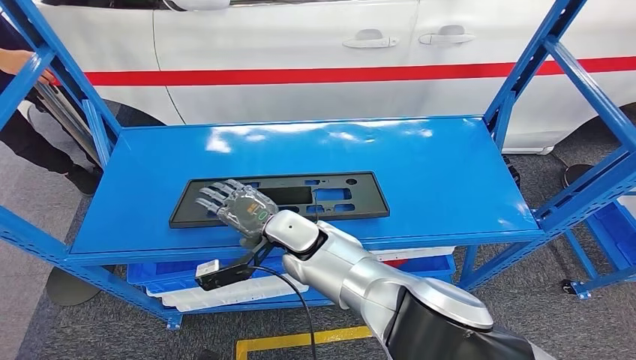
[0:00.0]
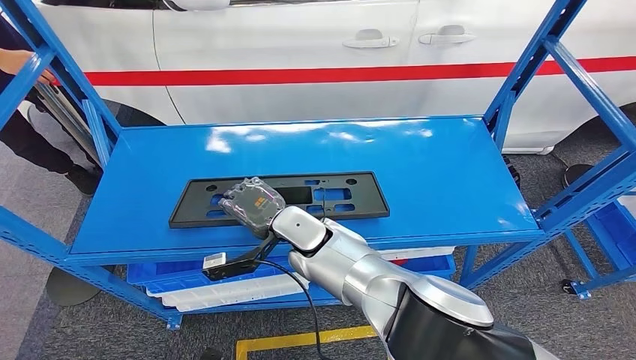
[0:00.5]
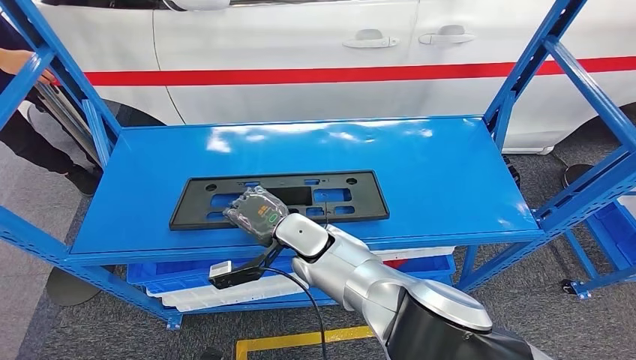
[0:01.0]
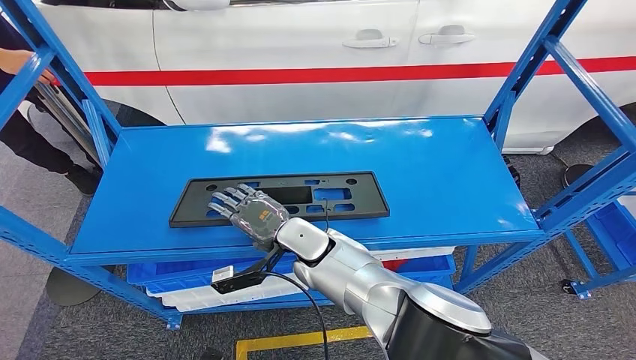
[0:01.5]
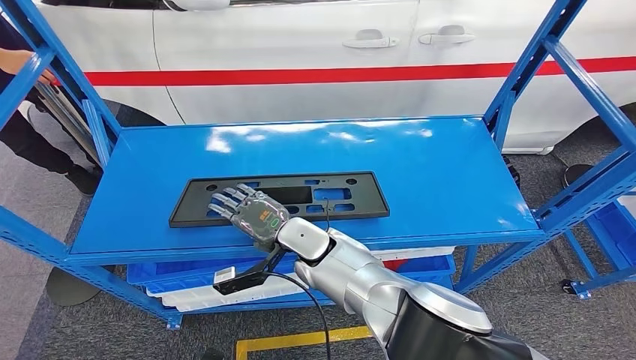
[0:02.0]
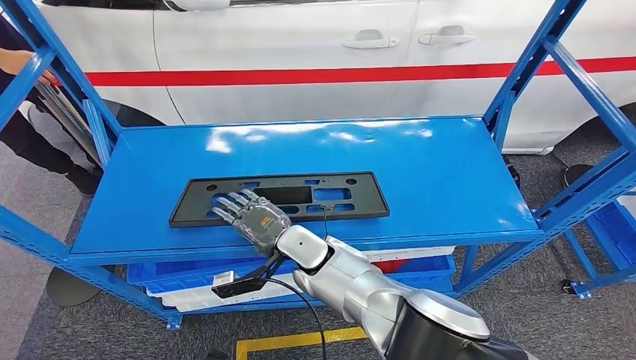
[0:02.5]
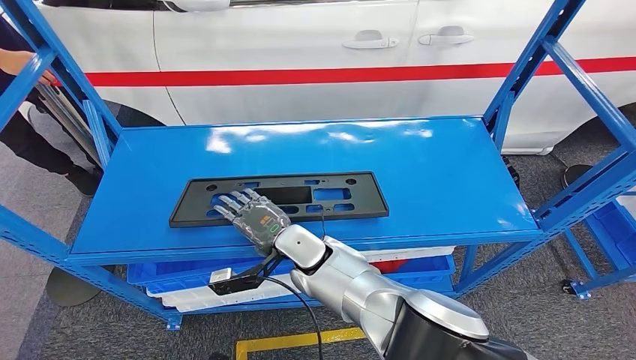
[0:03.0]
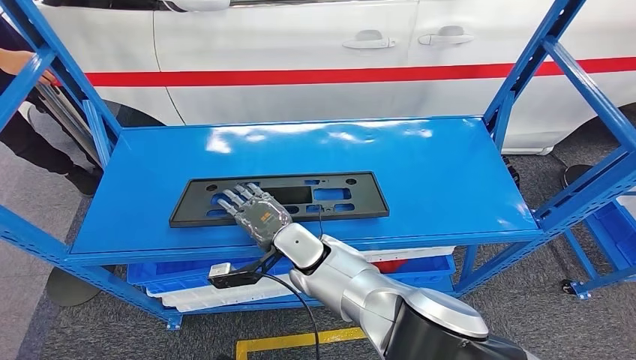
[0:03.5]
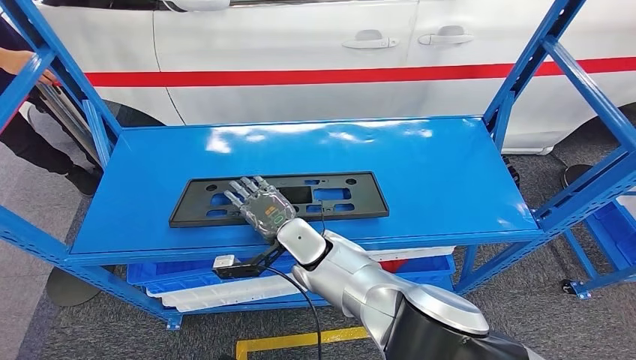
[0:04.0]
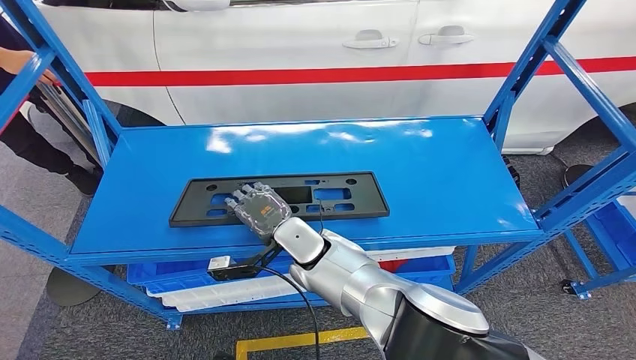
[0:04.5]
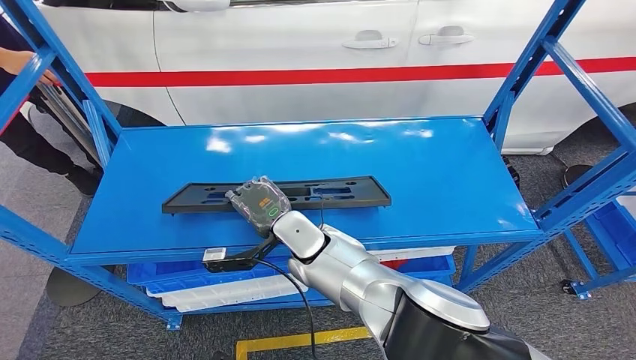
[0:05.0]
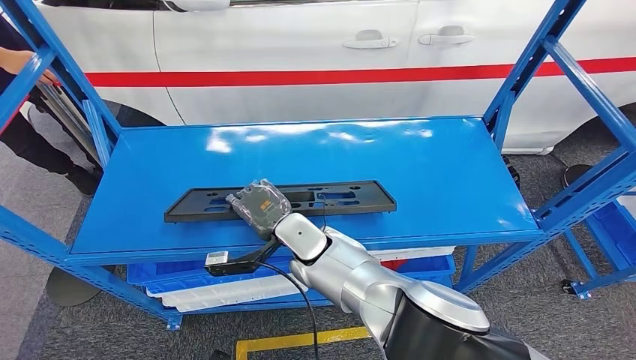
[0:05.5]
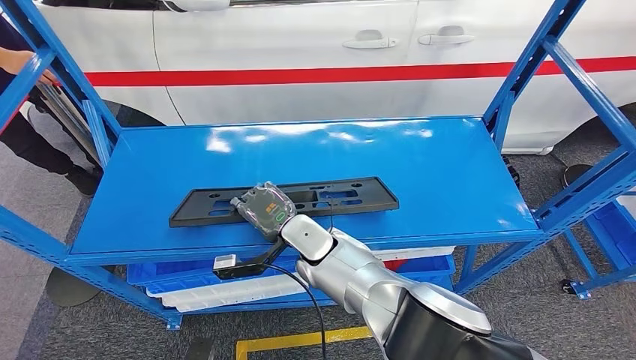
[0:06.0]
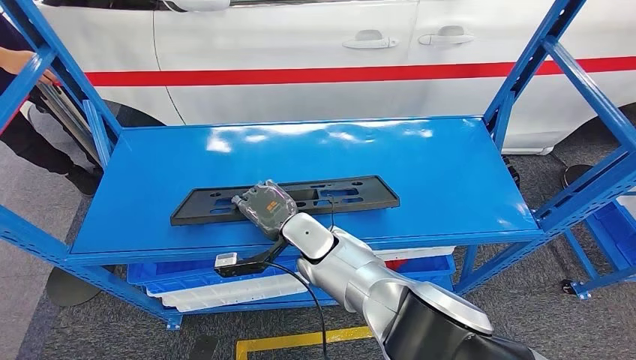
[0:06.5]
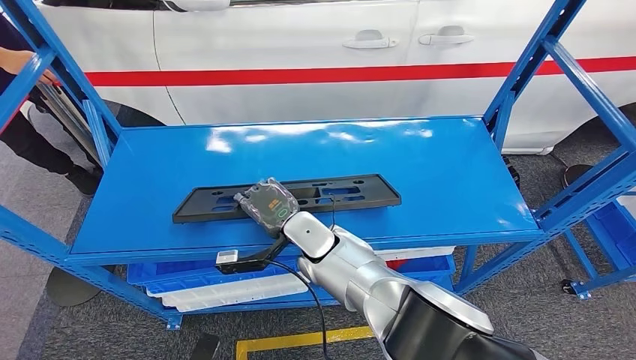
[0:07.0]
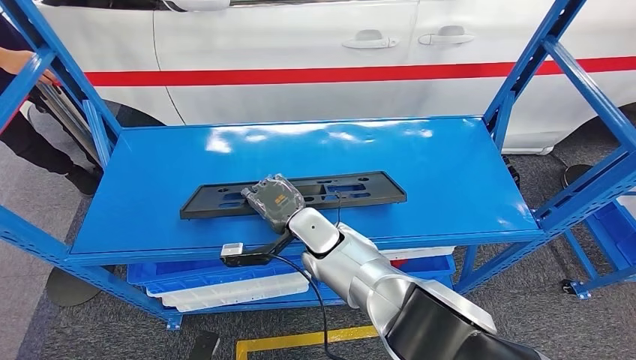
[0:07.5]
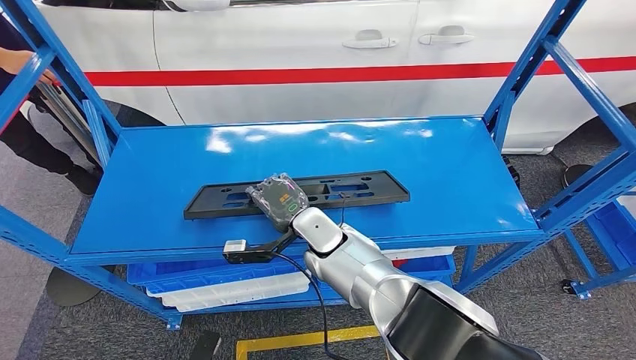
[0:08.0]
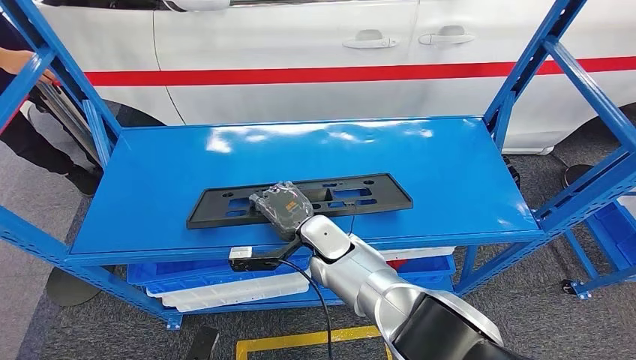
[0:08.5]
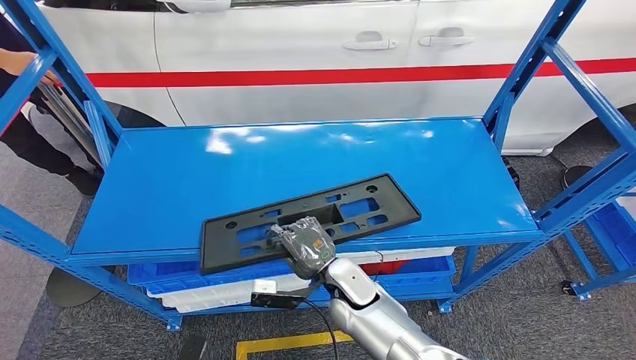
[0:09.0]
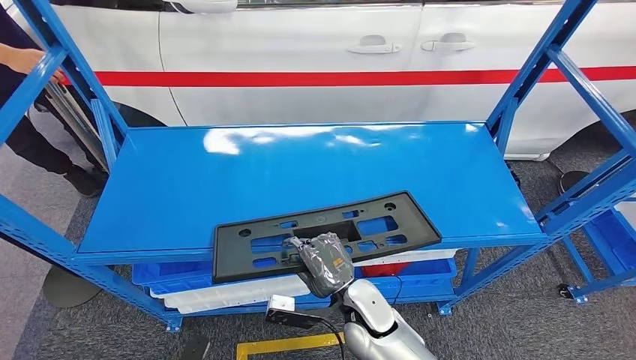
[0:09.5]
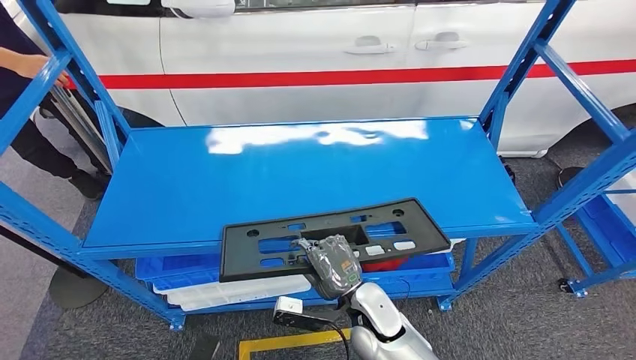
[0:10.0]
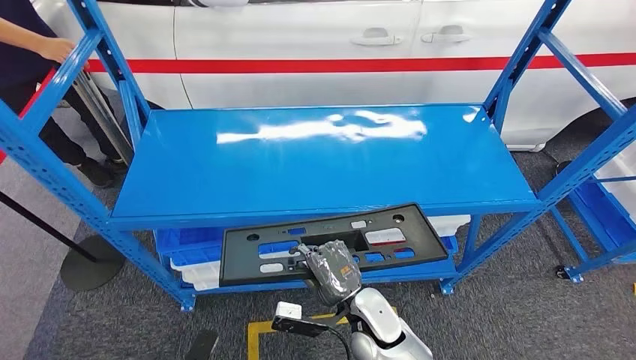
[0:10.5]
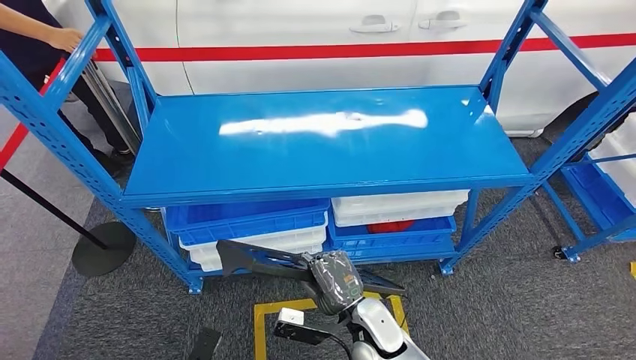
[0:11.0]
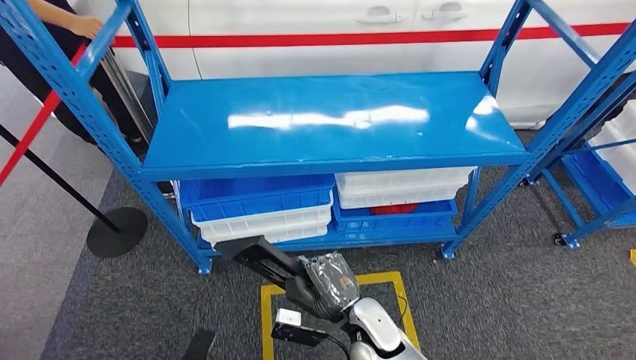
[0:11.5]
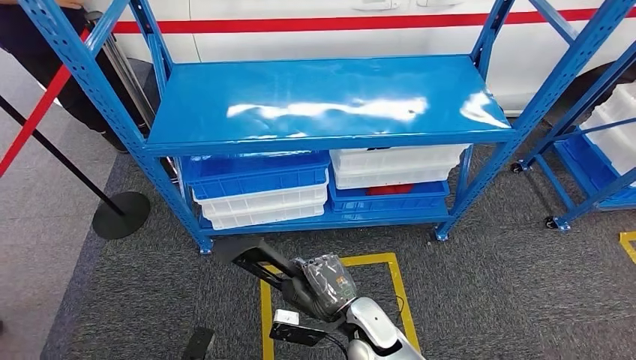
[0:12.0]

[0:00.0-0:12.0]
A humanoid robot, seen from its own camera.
Step, 0:00.0 to 0:10.5: Pick up the large material from the shelf.
0:00.0 to 0:04.0: The hands move only a little.
0:06.0 to 0:08.0: There are only small adjustments of the hands.

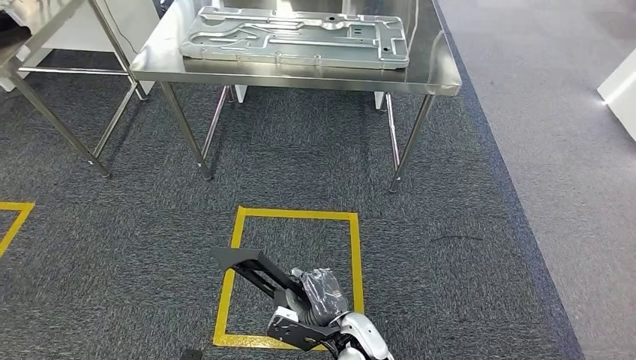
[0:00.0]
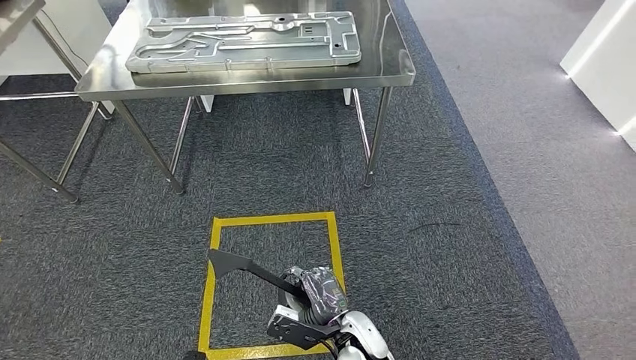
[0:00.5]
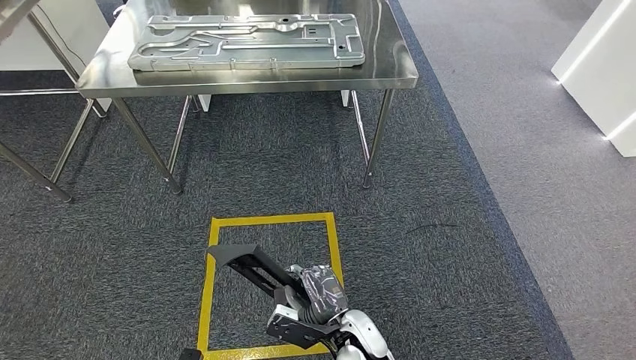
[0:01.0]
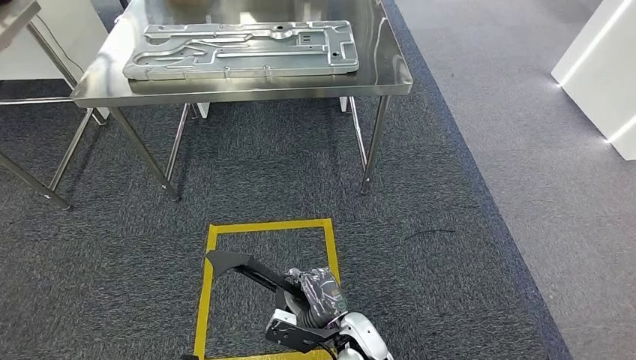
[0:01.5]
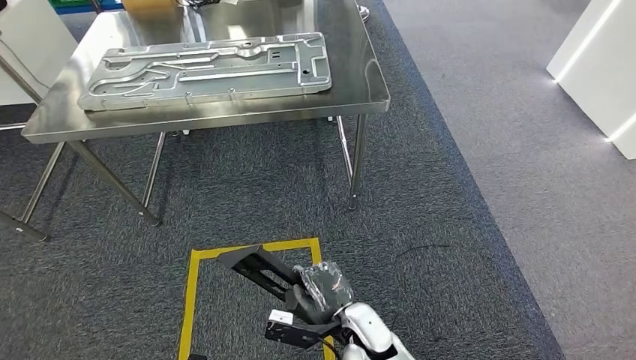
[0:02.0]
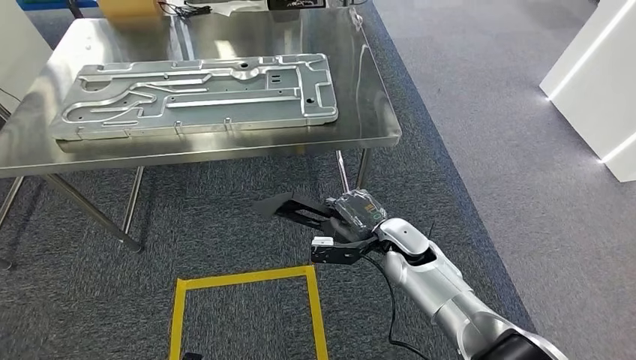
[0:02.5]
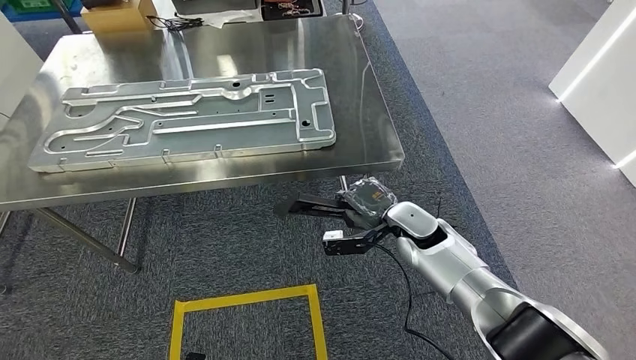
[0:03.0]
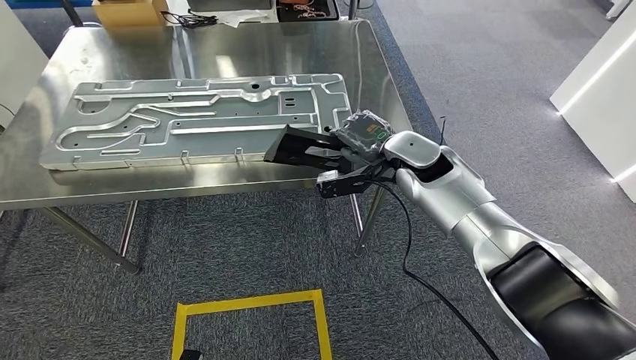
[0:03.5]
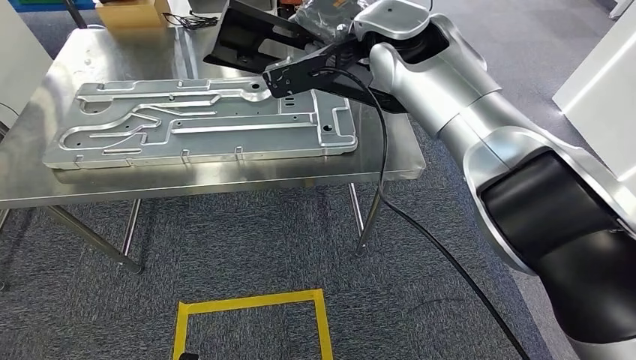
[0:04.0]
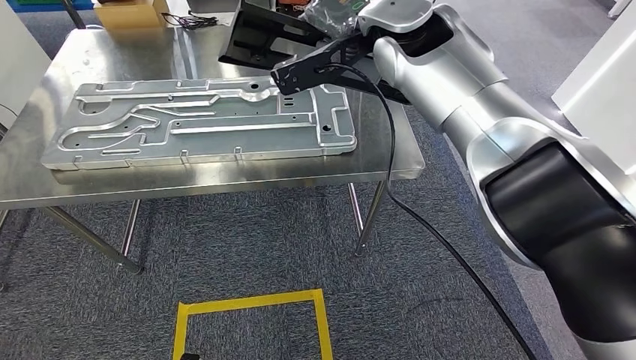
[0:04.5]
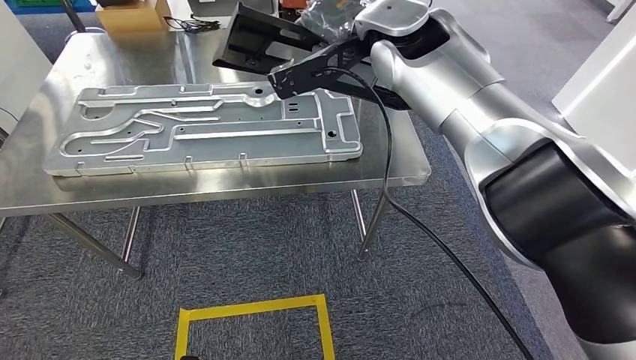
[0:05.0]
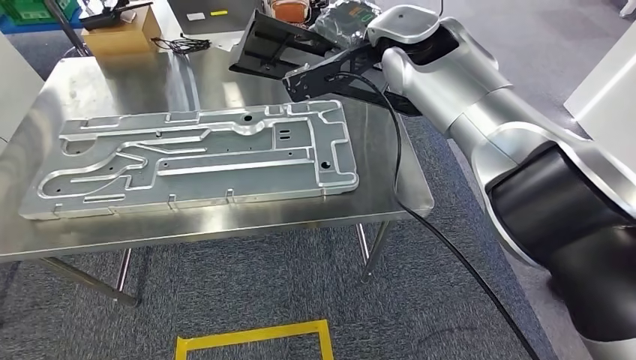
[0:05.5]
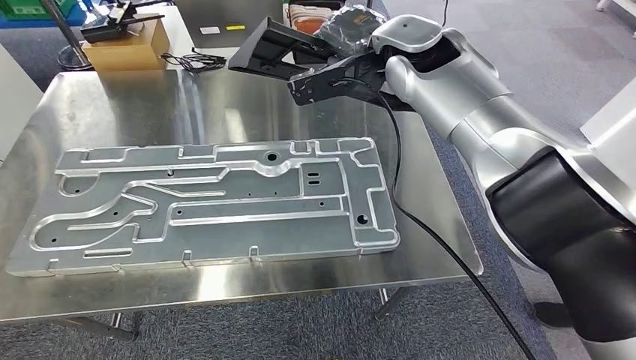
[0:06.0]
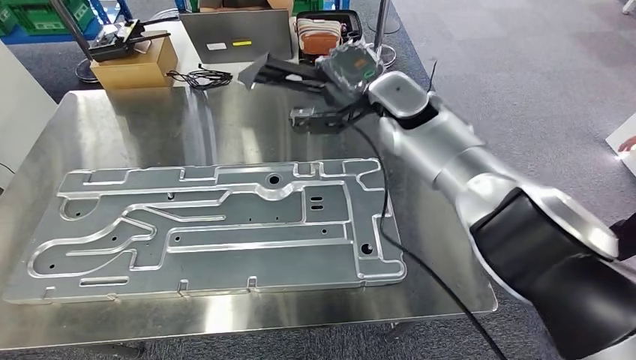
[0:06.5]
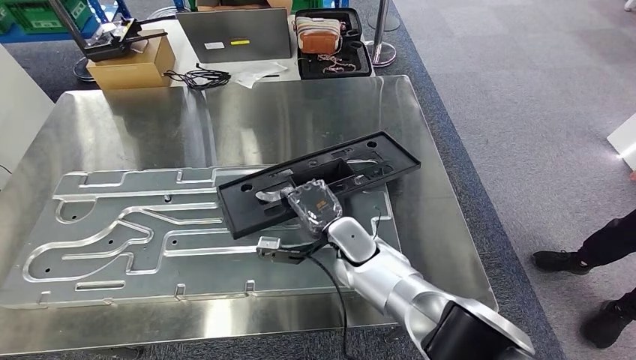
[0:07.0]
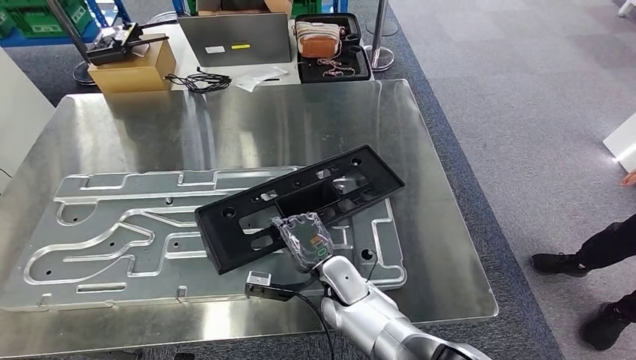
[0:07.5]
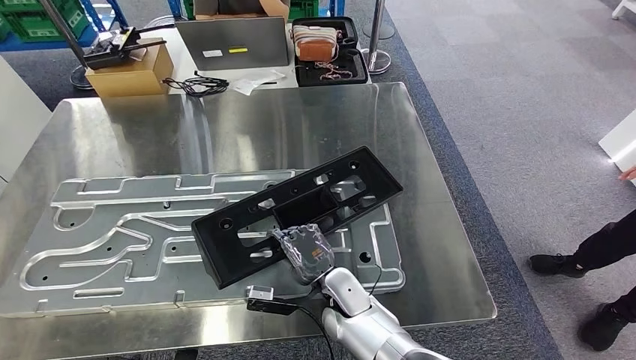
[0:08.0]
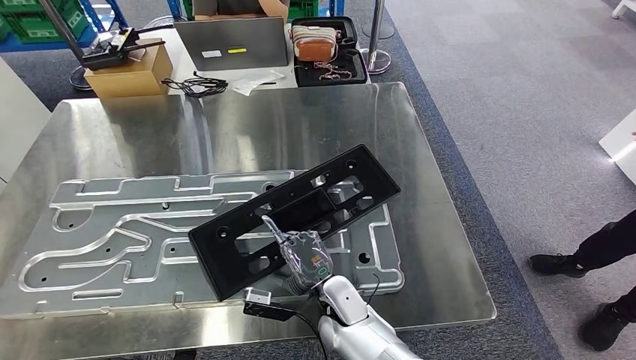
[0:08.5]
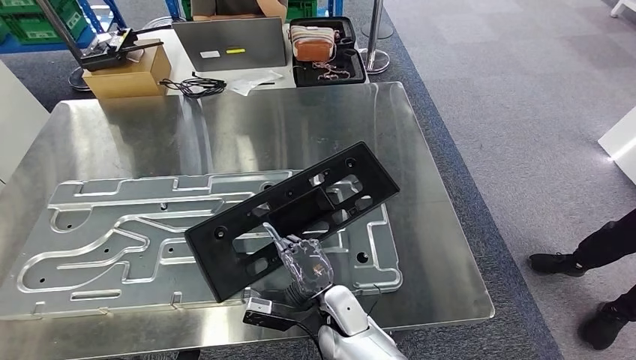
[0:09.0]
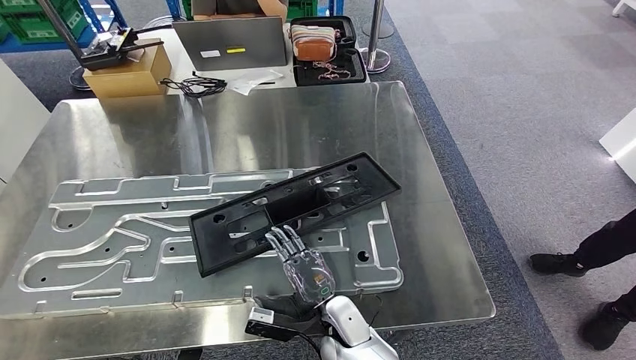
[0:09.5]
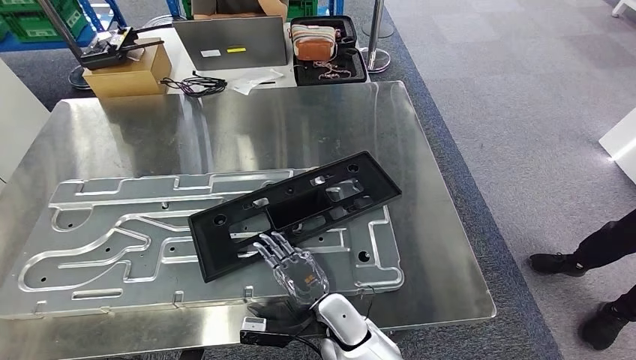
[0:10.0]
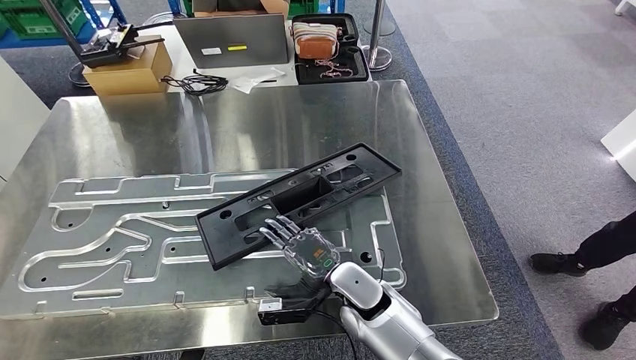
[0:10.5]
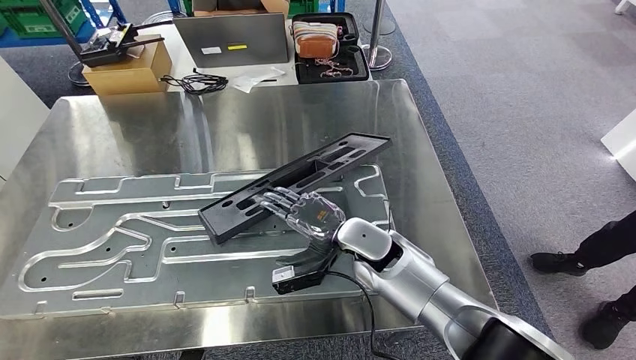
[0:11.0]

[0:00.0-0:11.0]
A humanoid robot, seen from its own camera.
Step, 0:00.0 to 0:04.0: Move the large material to the workbench.
Step, 0:06.0 to 0:10.5: Insert the large material into the corresponding slot on the workbench.
